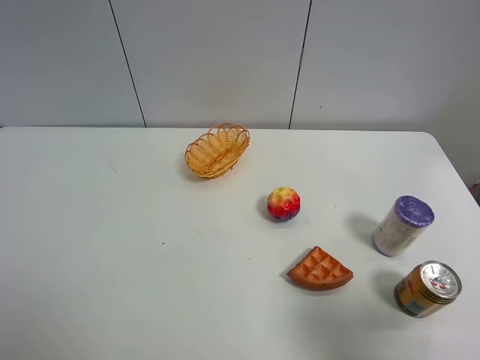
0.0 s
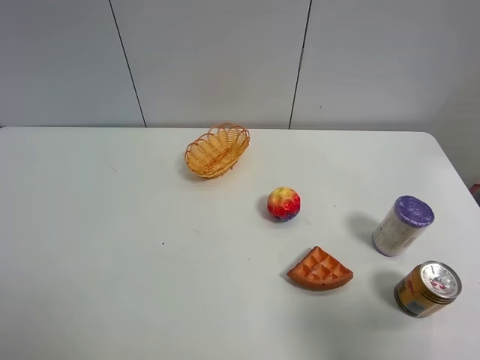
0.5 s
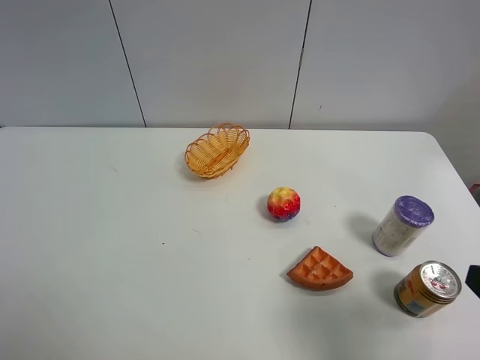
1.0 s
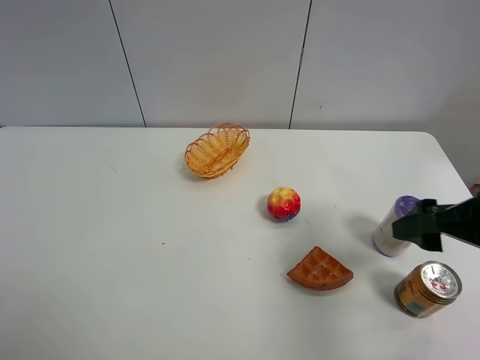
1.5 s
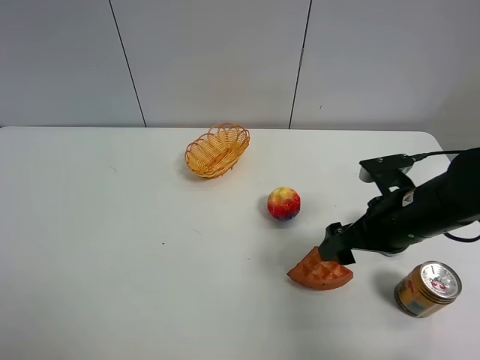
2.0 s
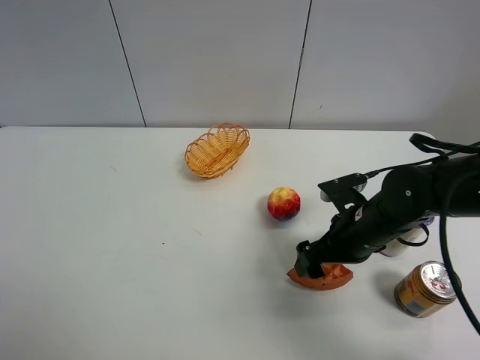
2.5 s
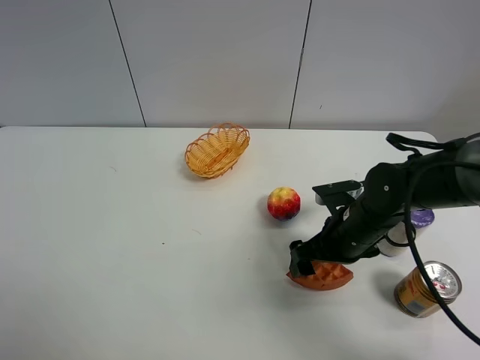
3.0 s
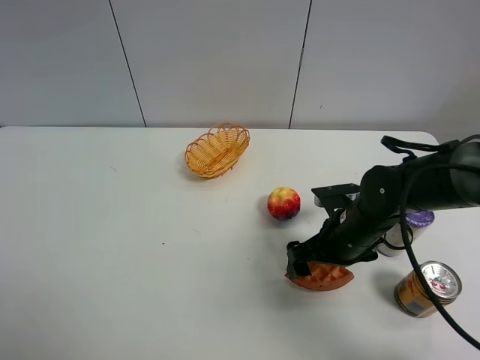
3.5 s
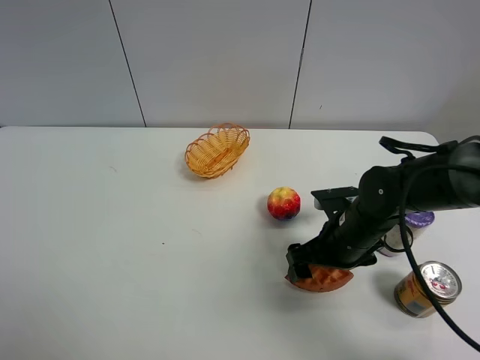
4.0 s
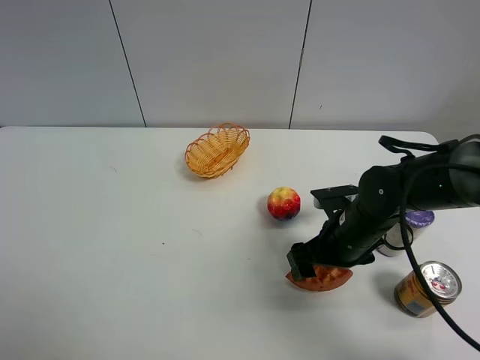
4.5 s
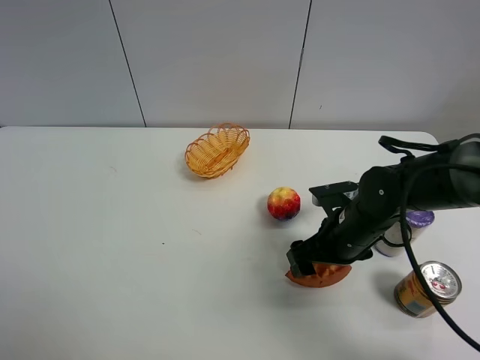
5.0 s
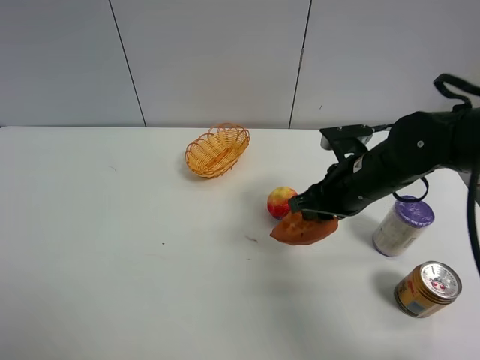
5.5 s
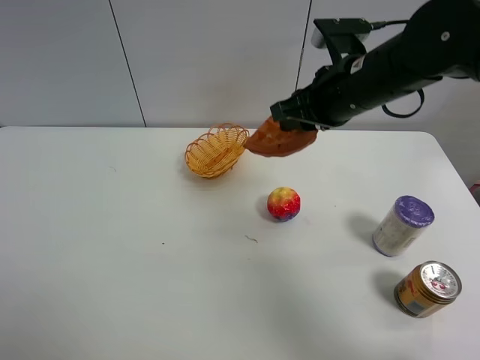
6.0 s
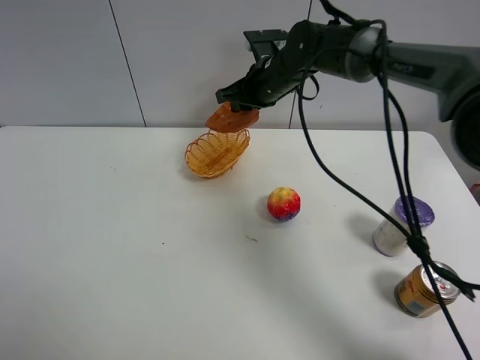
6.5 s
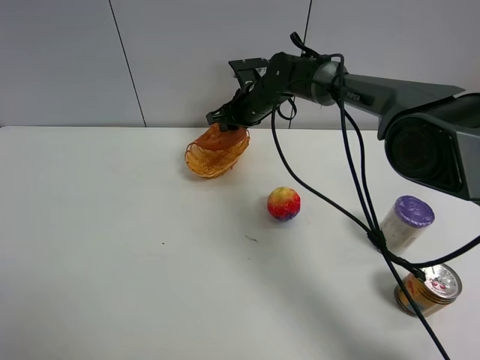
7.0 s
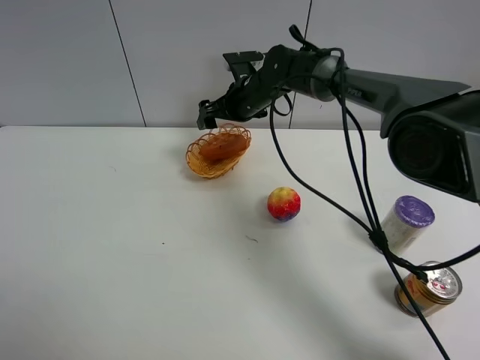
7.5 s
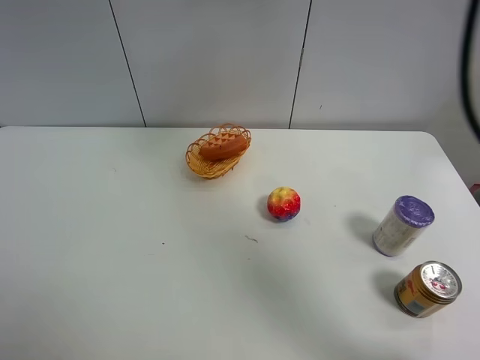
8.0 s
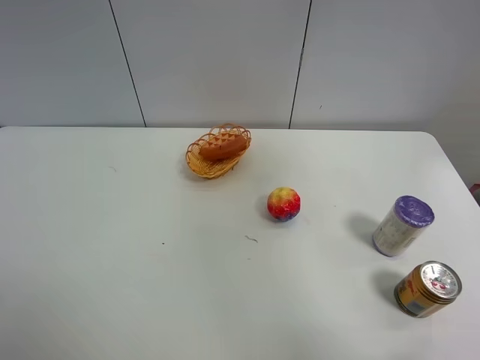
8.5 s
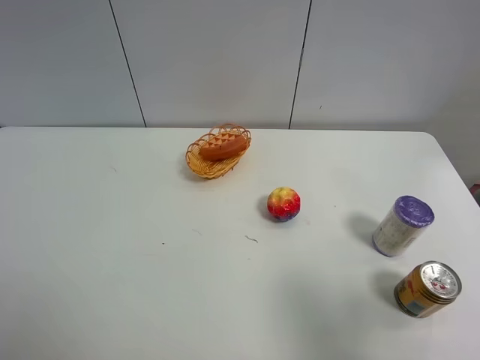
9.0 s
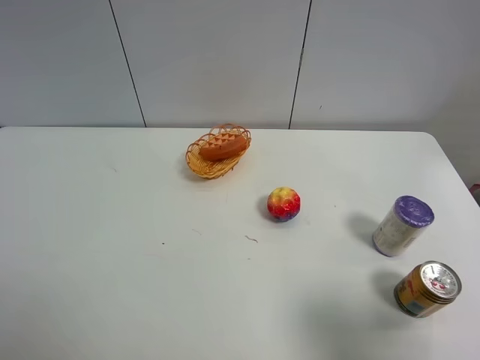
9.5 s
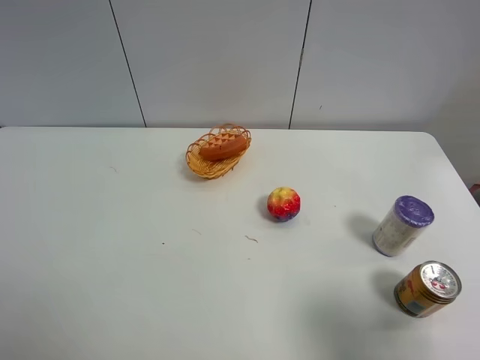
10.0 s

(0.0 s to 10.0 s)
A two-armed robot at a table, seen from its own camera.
Task of the whole recording: Put the bakery in the basket.
Step, 0.0 s - 5.0 s: Grasp the bread with right gripper.
Step, 5.5 s - 7.5 s: Place the bread in the basket with right gripper.
0.0 s - 2.0 s: The right gripper goes approximately 25 cm forward, downward and to the left.
2.0 s - 4.0 s: The right gripper moves downward, about 5 cm.
4.0 s - 6.0 s: The right gripper moves upward and forward, about 20 cm, and closes.
6.0 s - 8.0 s: The right gripper shifts roughly 15 cm upward, and opens up.
8.0 s - 10.0 s: The right gripper goes approximately 40 cm backward, to the right and downward.

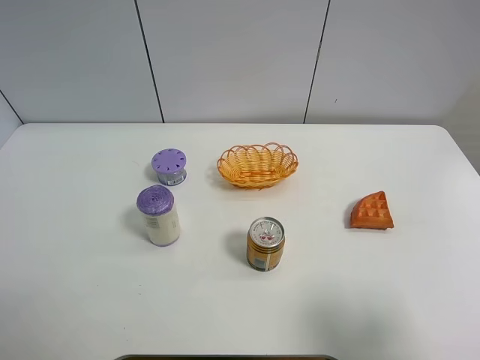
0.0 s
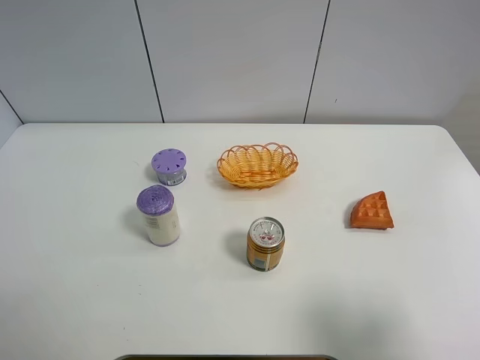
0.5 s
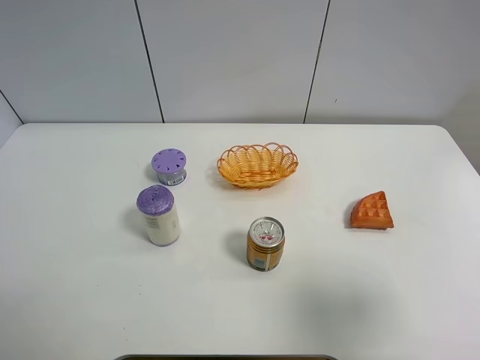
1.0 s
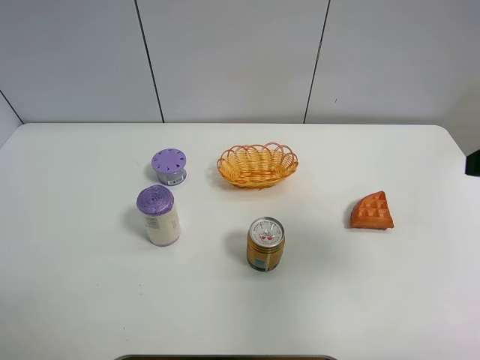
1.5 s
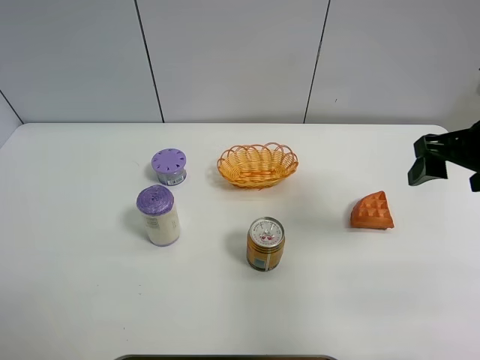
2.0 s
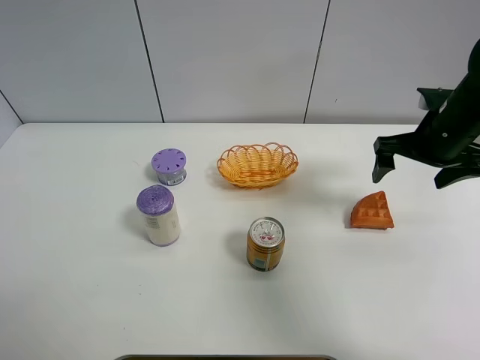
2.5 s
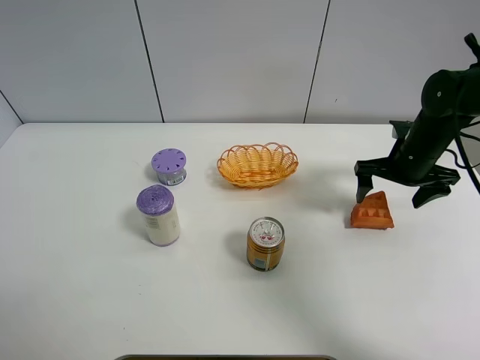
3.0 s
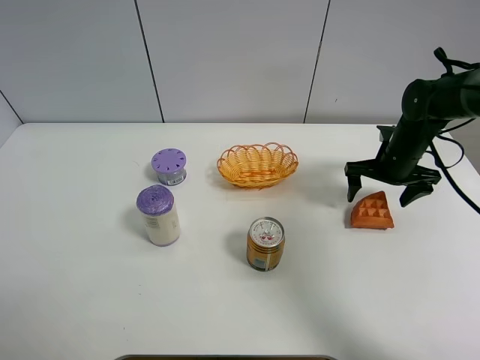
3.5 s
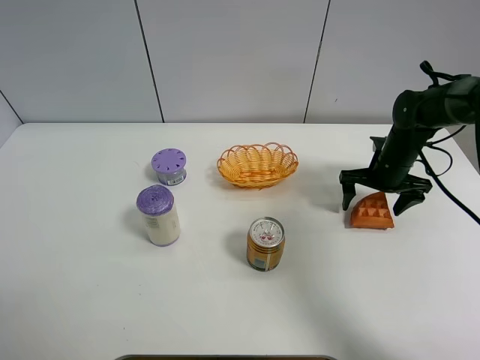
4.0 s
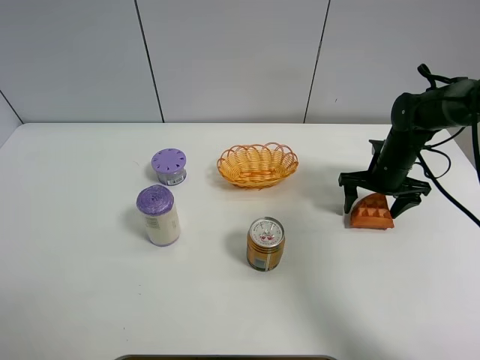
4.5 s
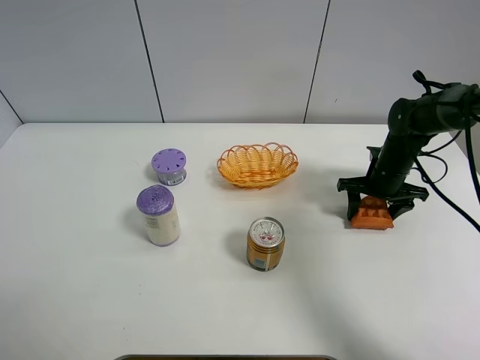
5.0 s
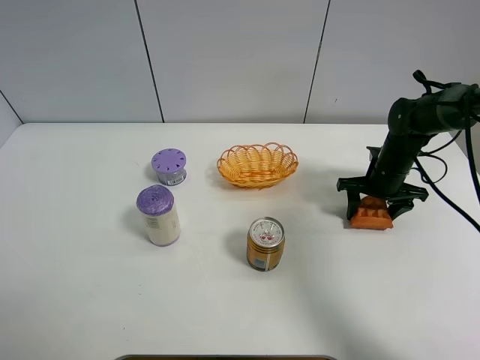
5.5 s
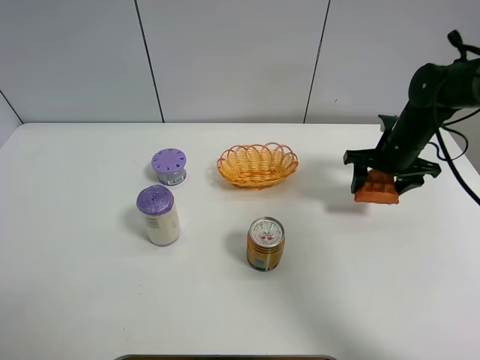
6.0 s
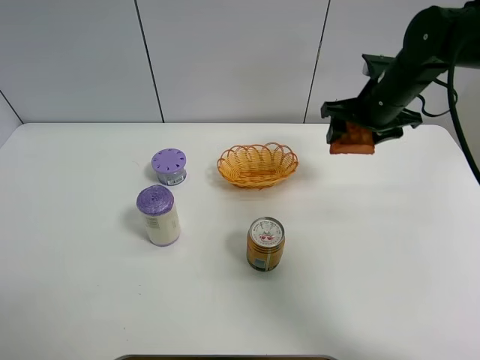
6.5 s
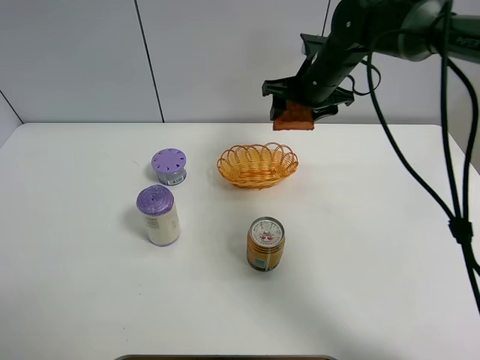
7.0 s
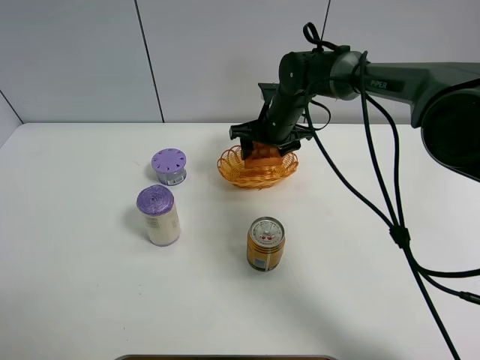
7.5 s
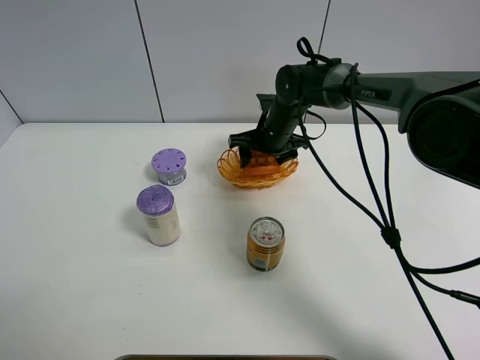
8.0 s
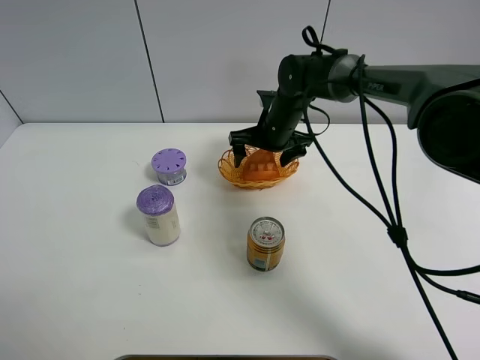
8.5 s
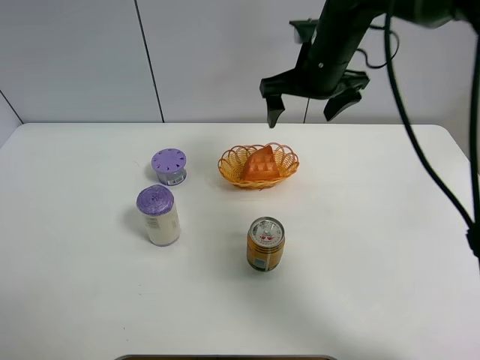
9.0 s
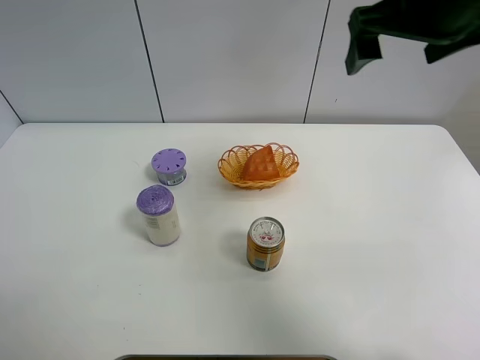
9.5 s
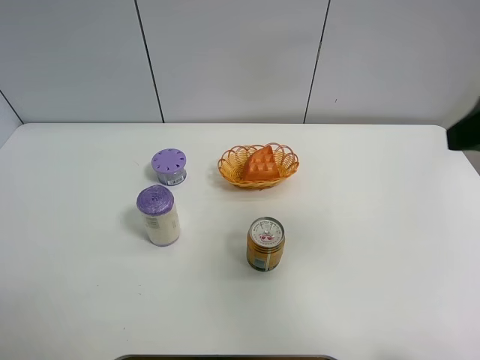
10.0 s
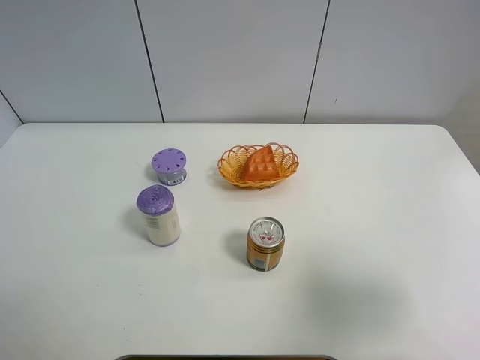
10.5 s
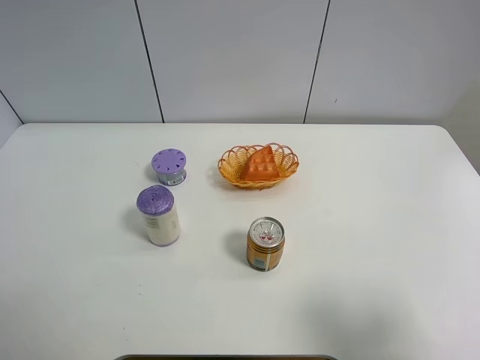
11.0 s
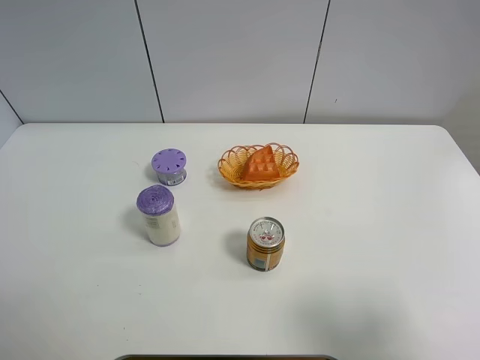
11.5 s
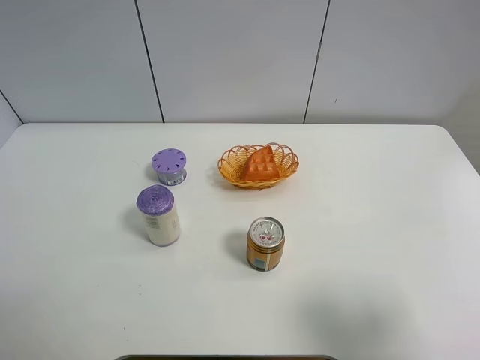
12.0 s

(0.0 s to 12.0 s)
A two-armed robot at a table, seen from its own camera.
Task of the whole recording: Put the bakery in the basket.
Step, 0.0 s - 5.0 s: Grasp the bread with right gripper.
Step, 5.5 s - 9.0 s: Place the bread in the basket with right gripper.
0.0 s - 2.0 s: The right gripper travels forward by some 25 cm.
2.0 s - 4.0 s: The right gripper shifts some 25 cm downward and forward, and opens its fingers.
4.0 s - 6.0 s: The right gripper travels upward by about 5 cm, and closes its fingers.
6.0 s - 8.0 s: The right gripper goes some 20 cm to the left.
8.0 s - 10.0 s: The right gripper heads backward, upward and to the right, covering approximately 40 cm, and opens up.
10.0 s - 12.0 s: The right gripper is displaced backward and downward by roughly 15 cm.
